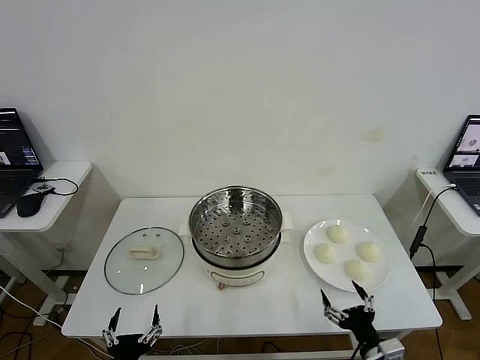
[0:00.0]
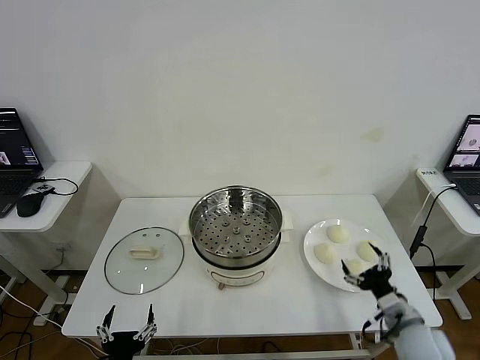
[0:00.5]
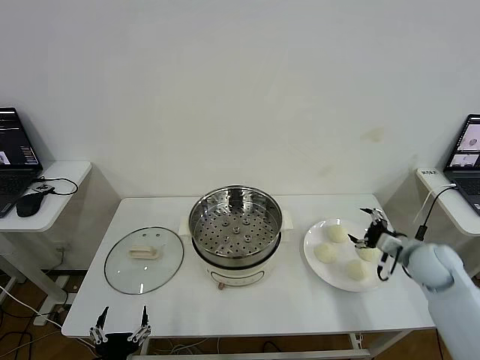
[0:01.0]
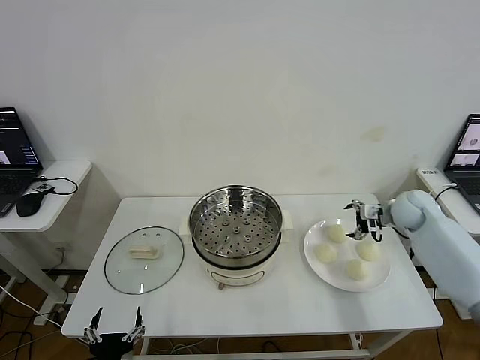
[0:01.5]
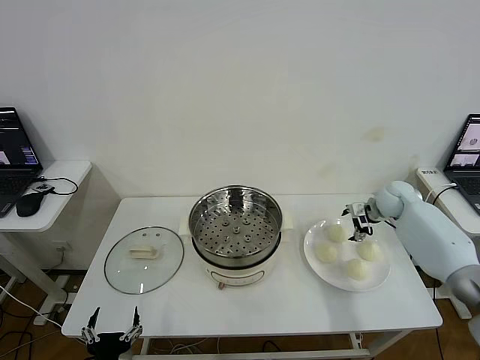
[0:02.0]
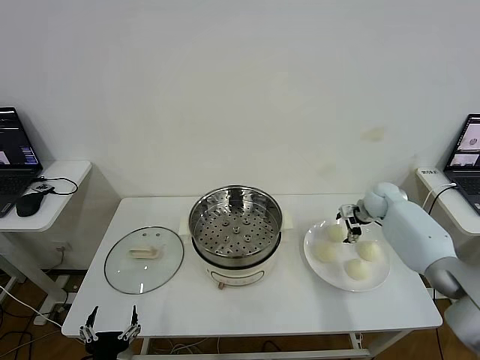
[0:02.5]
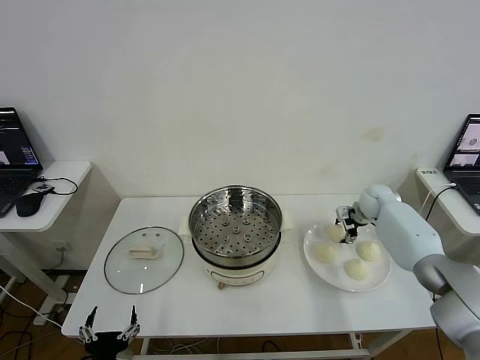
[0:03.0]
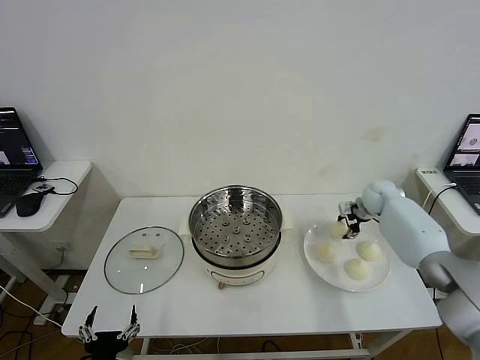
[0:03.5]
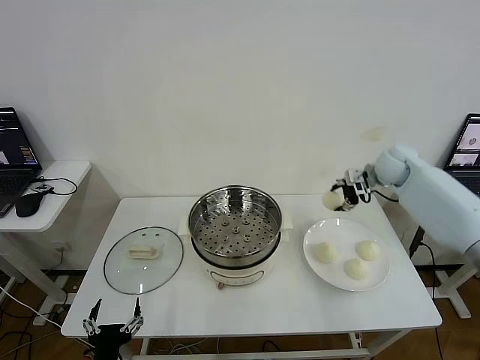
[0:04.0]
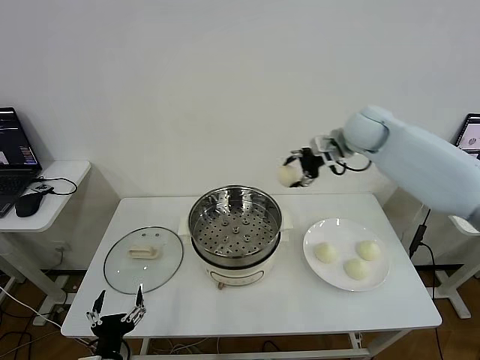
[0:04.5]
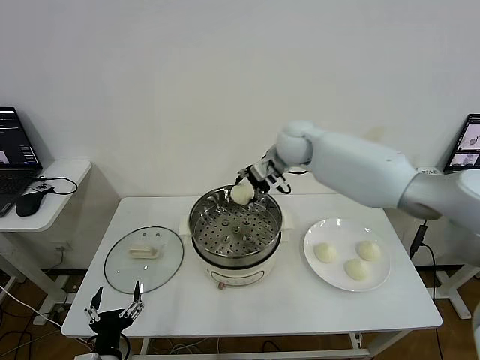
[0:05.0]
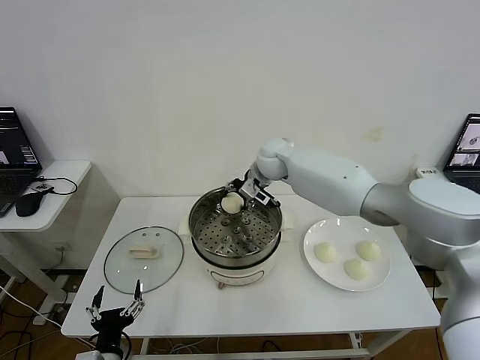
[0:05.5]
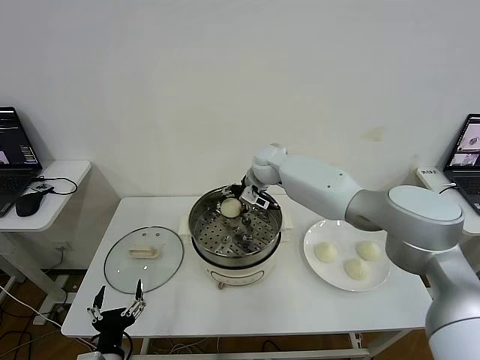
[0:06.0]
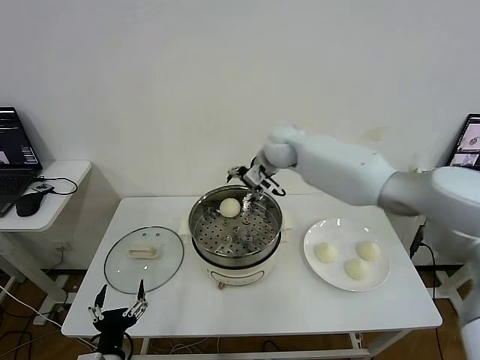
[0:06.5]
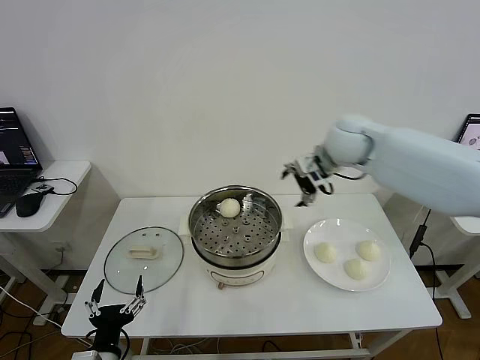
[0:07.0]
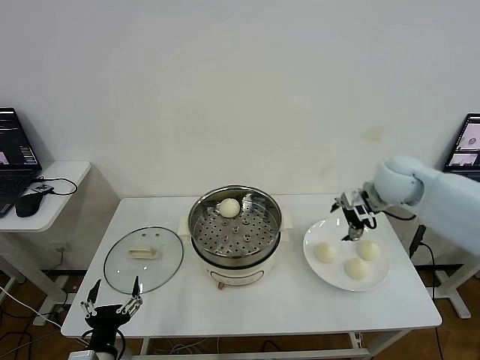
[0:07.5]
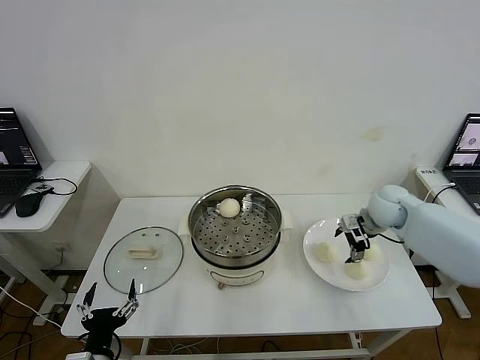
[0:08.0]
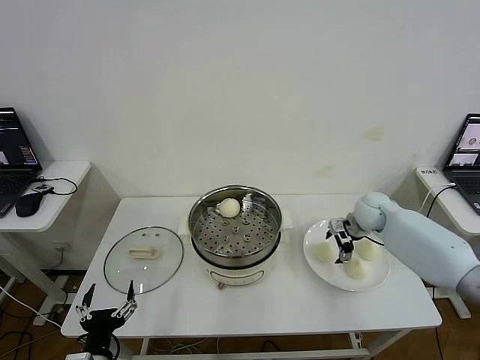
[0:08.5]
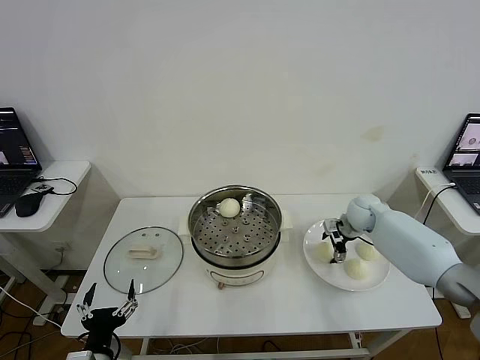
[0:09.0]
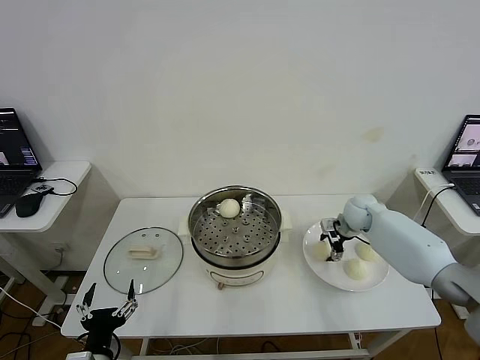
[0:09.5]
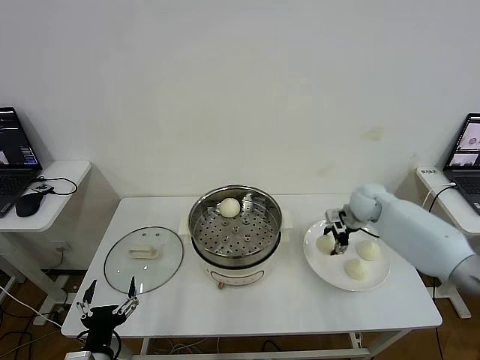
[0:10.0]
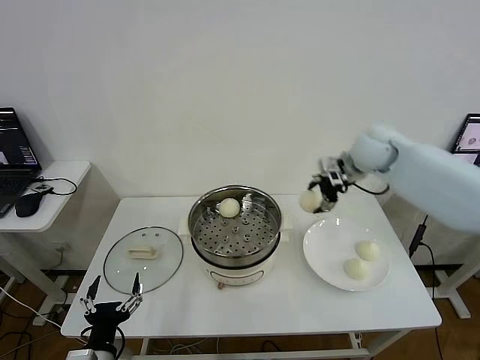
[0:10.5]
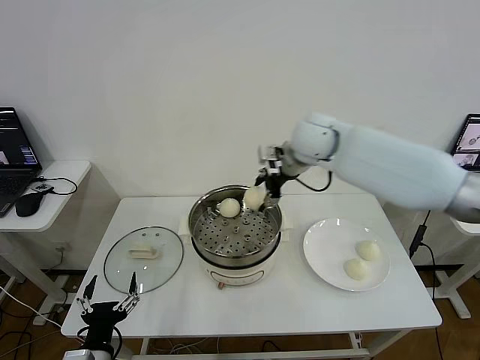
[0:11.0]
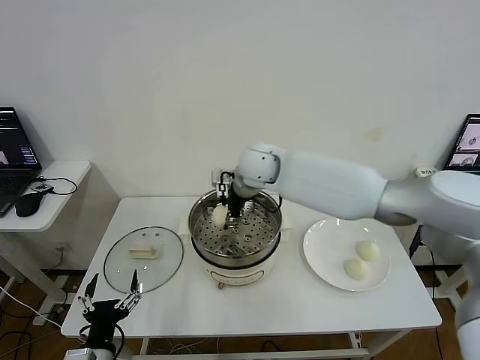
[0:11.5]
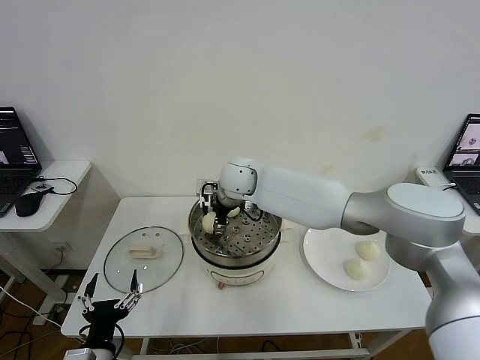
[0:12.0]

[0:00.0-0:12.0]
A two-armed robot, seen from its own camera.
Step, 0:00.0 to 0:03.0: Grasp the baozi in the plate with right gripper.
Step, 0:03.5 to 0:06.0: Place the baozi on the steamer with right gripper.
Step, 0:06.5 to 0:09.5: Grasp the baozi in the plate with right gripper.
0:02.0 to 0:04.0: The right gripper heads upward, covering about 10 cm, and closes up.
0:04.0 to 0:06.0: The right gripper travels to the left by roughly 30 cm, and opens.
0:06.0 to 0:08.0: The right gripper shifts about 30 cm to the right.
0:08.0 to 0:10.0: The right gripper closes its fingers.
0:10.0 to 0:12.0: The right gripper shifts roughly 35 cm to the left.

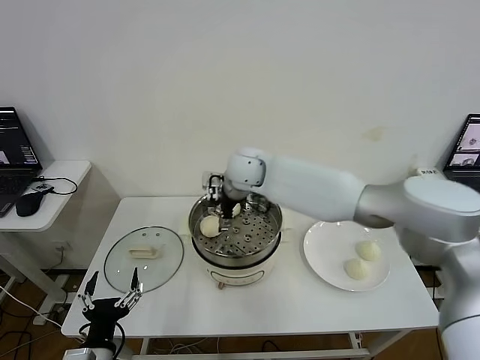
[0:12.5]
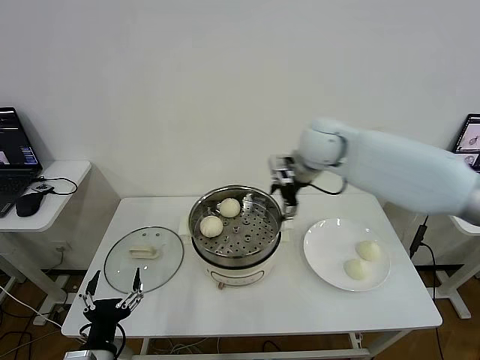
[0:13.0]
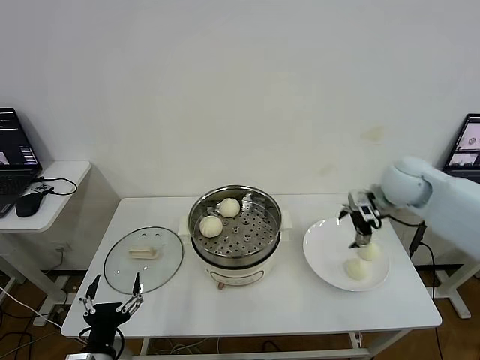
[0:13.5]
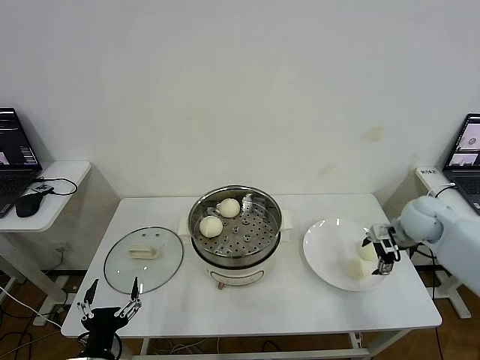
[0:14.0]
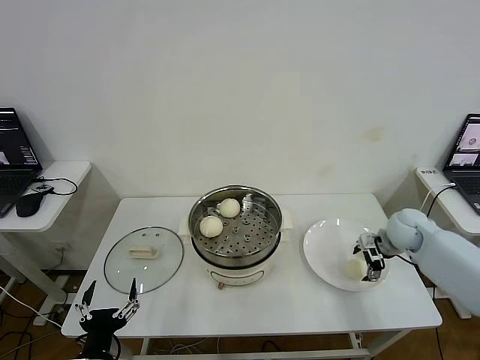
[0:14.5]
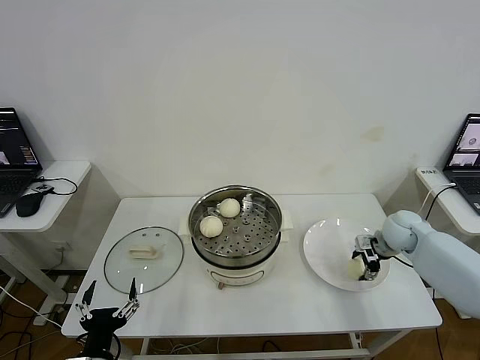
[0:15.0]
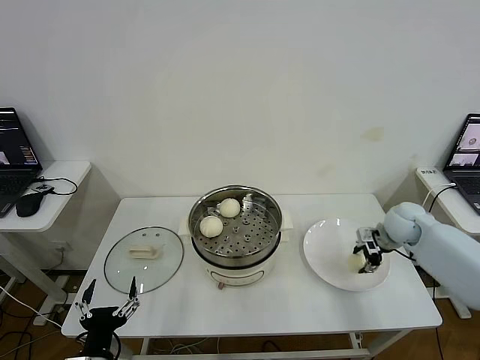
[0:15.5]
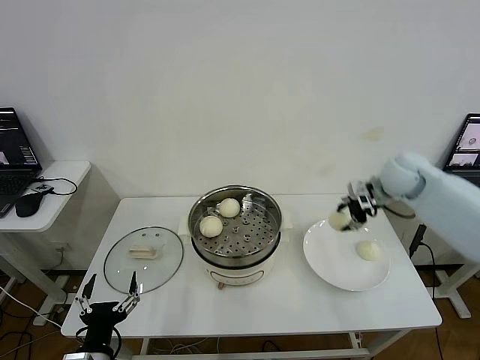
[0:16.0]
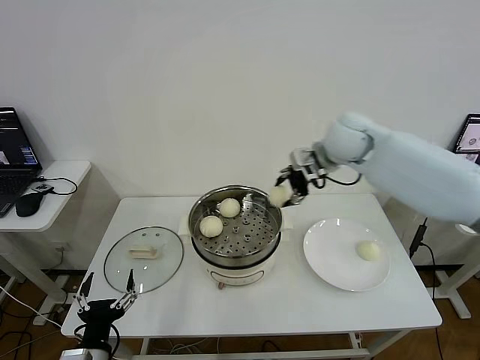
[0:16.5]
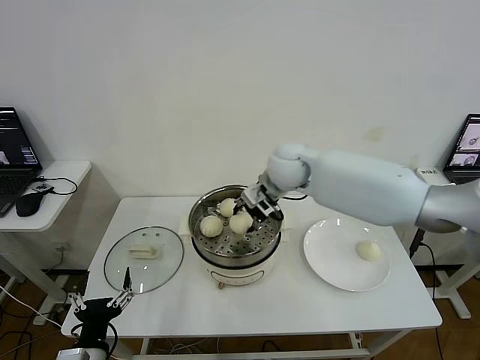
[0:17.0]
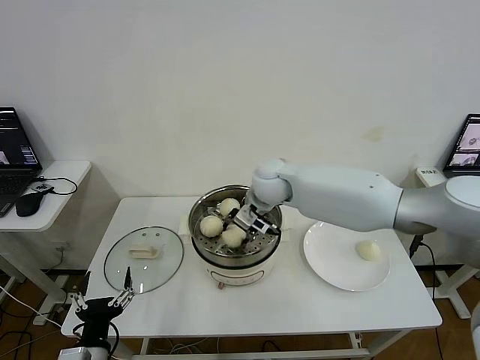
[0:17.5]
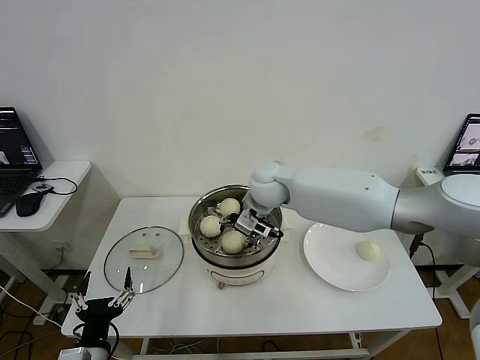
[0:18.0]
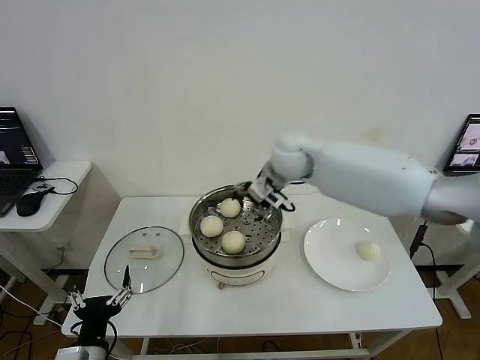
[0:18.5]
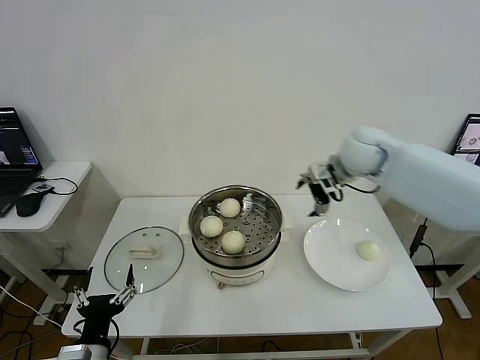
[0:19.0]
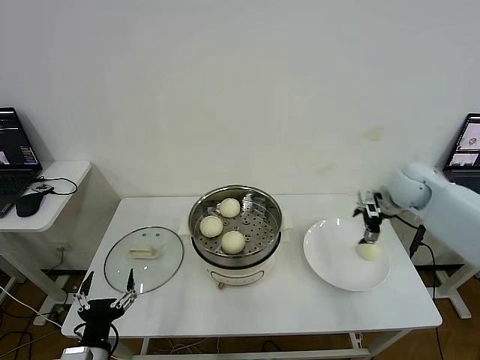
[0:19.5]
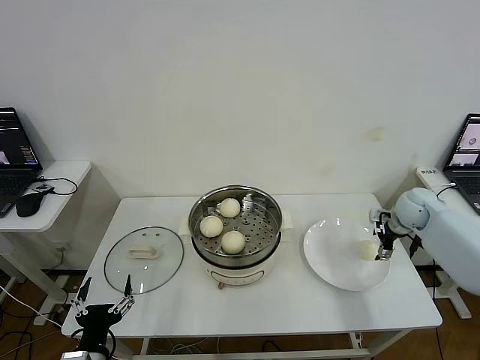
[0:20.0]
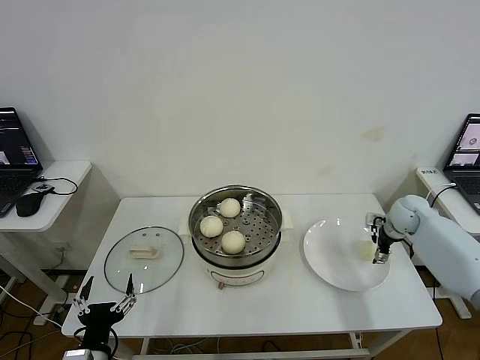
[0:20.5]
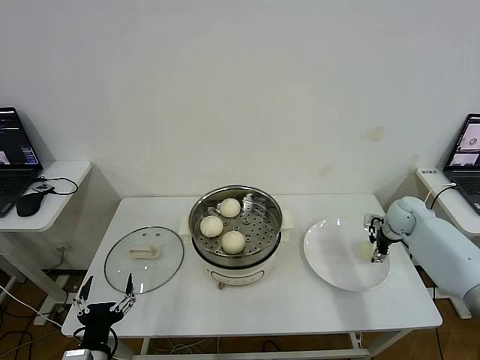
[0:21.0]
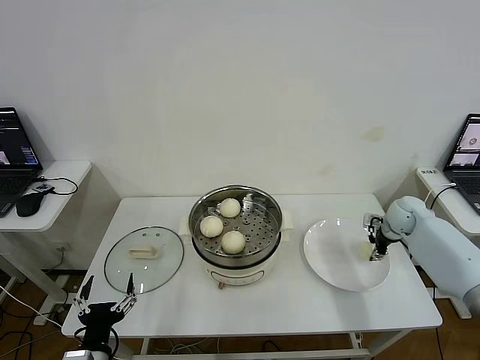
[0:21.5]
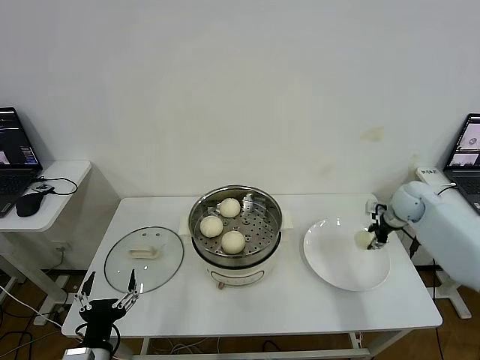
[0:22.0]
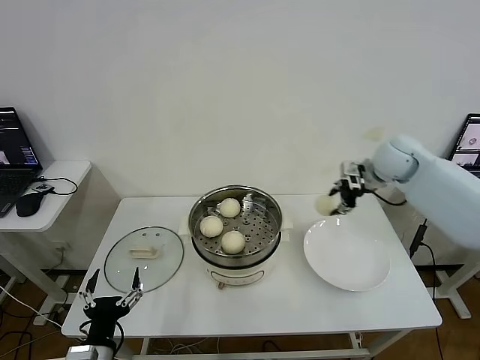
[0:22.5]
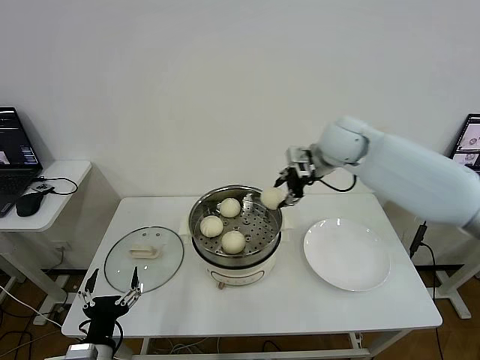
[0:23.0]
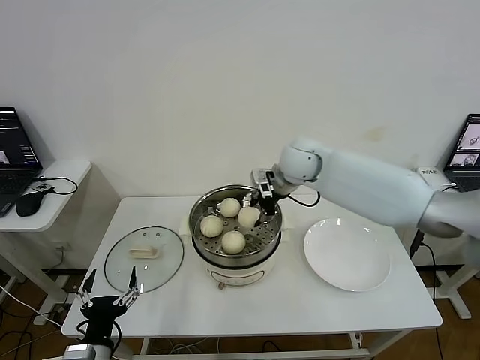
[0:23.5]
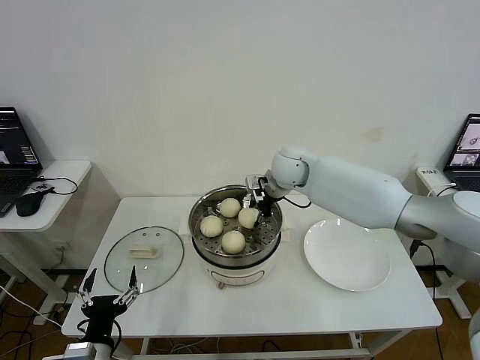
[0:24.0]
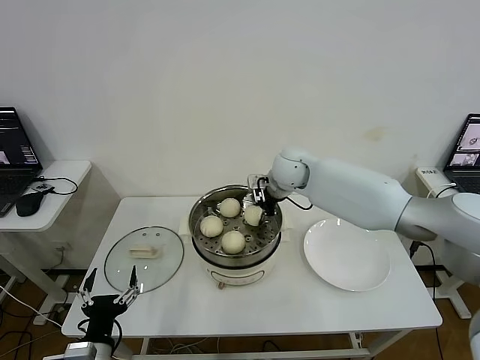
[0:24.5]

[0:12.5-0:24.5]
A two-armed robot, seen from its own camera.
Step, 0:12.5 to 0:15.0: Grasp the baozi in the plate with right gripper.
Step, 0:15.5 to 0:18.0: Place the baozi on the steamer with right gripper.
Step, 0:18.5 to 0:21.5: Grasp the baozi in the plate with right gripper.
0:12.5 to 0:14.5: The right gripper moves to the right, roughly 40 cm.
0:14.5 to 0:16.5: The right gripper goes some 30 cm upward and to the left, and closes its fingers.
0:16.5 to 0:18.5: The right gripper heads to the left, covering approximately 10 cm, and opens up.
0:18.5 to 0:20.5: The right gripper is displaced to the right and downward by about 40 cm.
0:20.5 to 0:22.5: The right gripper shifts about 20 cm upward and to the left, and closes up.
0:22.5 to 0:24.5: The right gripper is displaced to the left by some 25 cm.

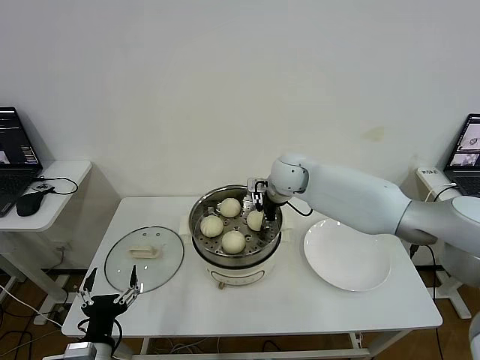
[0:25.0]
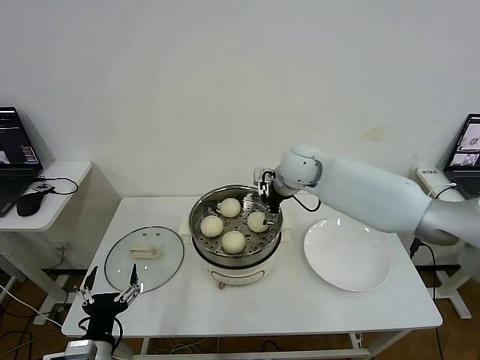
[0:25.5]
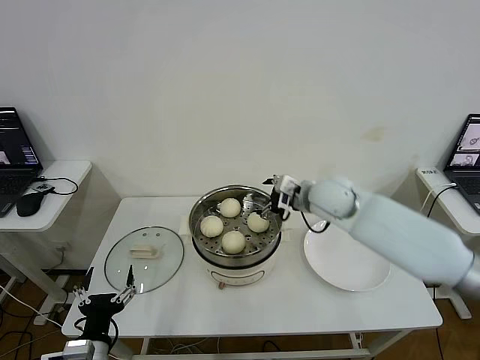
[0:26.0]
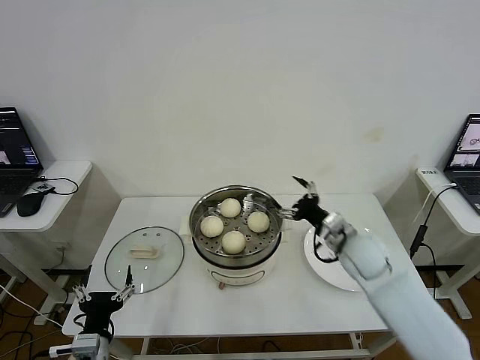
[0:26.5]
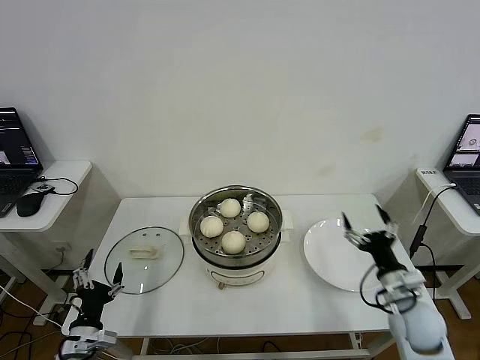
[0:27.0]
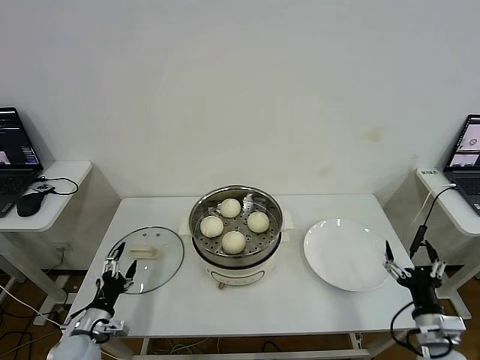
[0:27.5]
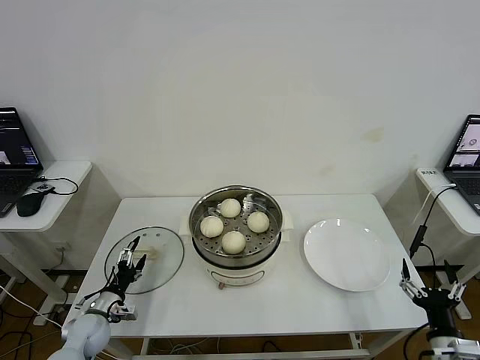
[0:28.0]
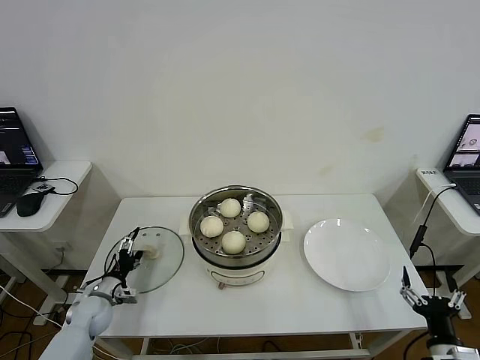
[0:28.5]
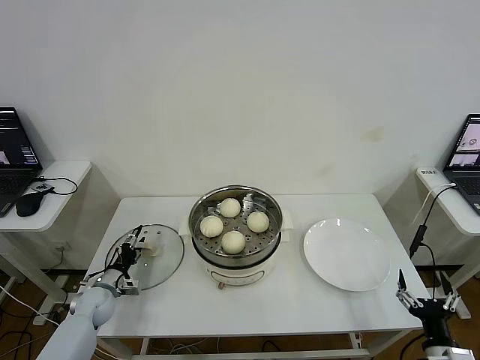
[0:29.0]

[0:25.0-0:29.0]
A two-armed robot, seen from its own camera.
0:25.0 to 0:27.0: The left gripper goes approximately 5 cm to the left. The right gripper shifts roughly 40 cm backward, to the right and downward, and opens up.
0:27.0 to 0:29.0: The right gripper is displaced backward by some 15 cm. Meanwhile the left gripper heads forward, covering some 20 cm.
